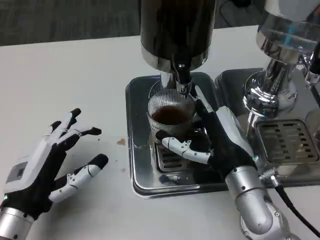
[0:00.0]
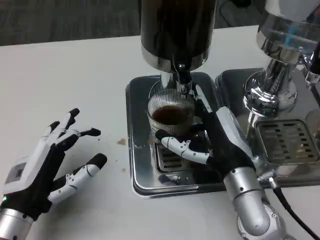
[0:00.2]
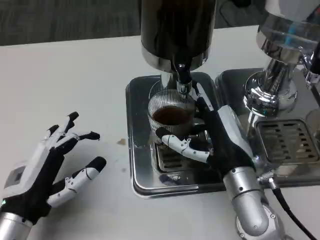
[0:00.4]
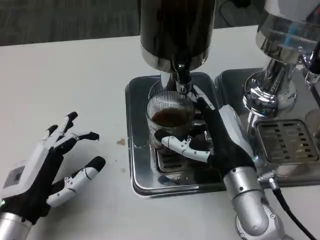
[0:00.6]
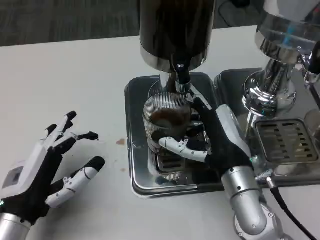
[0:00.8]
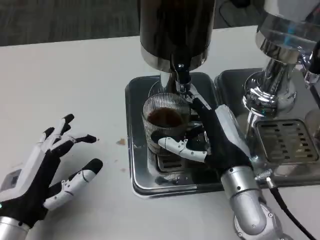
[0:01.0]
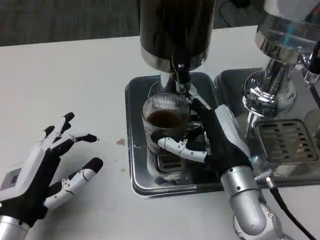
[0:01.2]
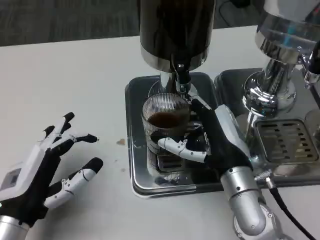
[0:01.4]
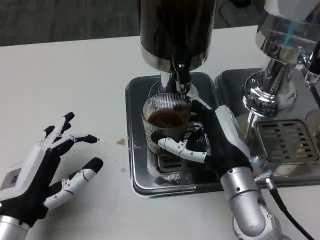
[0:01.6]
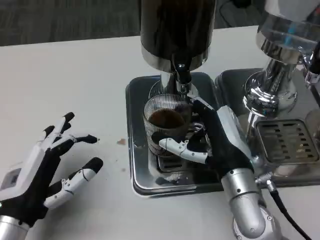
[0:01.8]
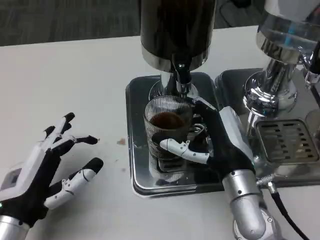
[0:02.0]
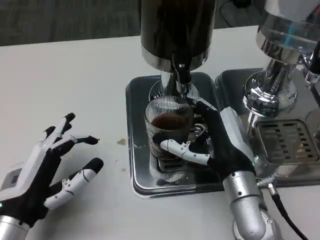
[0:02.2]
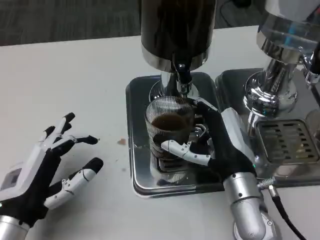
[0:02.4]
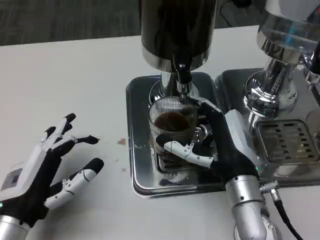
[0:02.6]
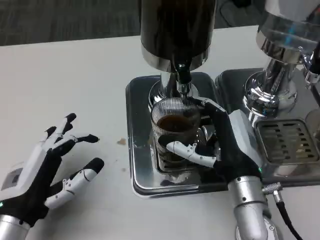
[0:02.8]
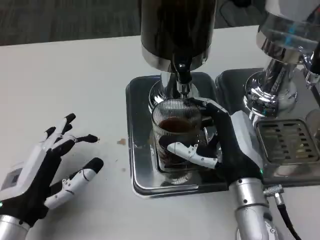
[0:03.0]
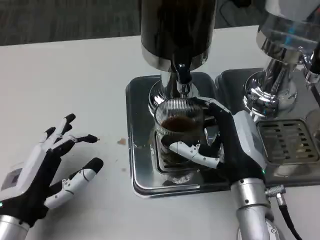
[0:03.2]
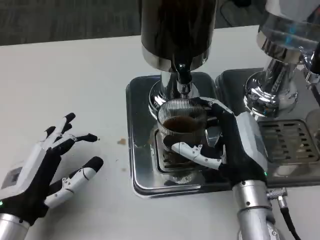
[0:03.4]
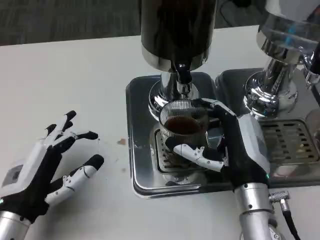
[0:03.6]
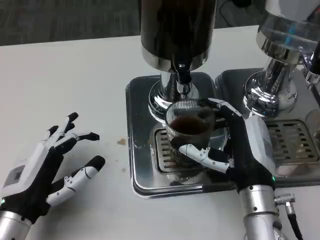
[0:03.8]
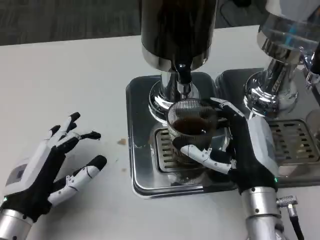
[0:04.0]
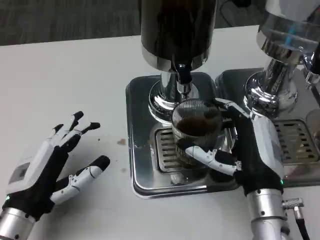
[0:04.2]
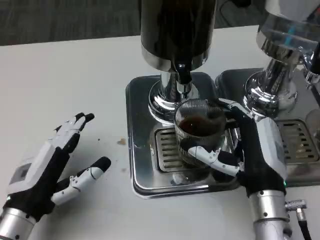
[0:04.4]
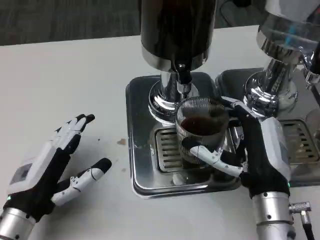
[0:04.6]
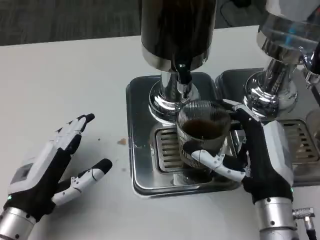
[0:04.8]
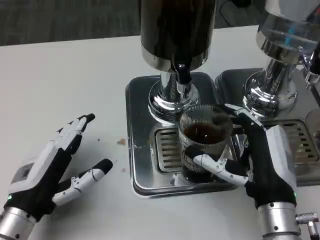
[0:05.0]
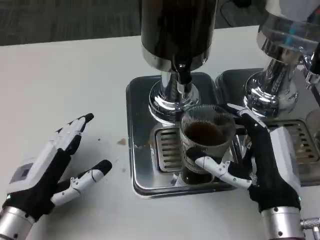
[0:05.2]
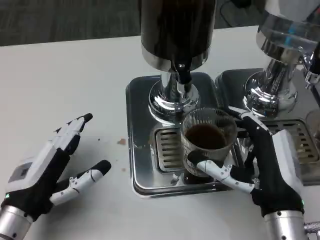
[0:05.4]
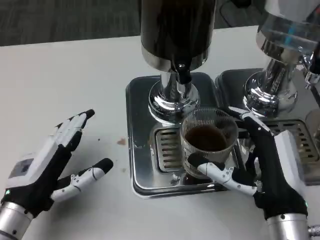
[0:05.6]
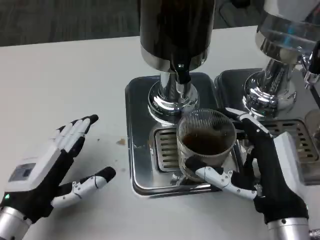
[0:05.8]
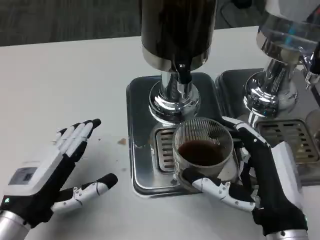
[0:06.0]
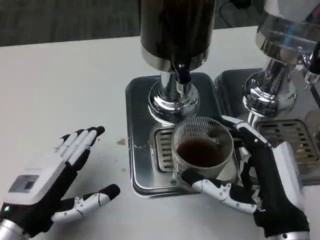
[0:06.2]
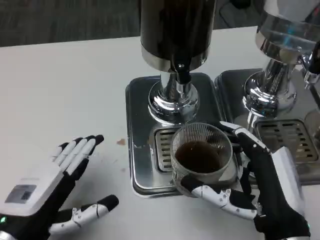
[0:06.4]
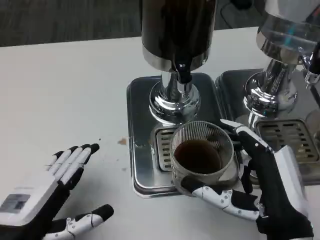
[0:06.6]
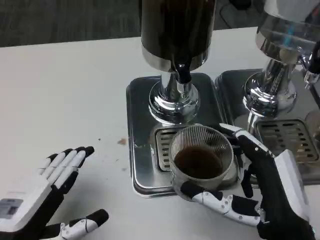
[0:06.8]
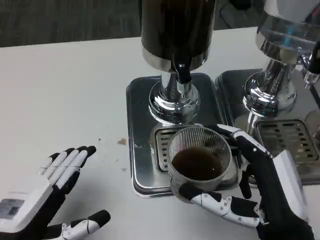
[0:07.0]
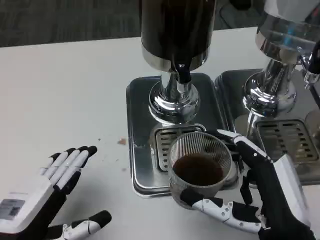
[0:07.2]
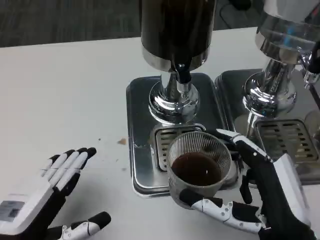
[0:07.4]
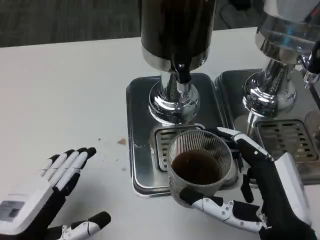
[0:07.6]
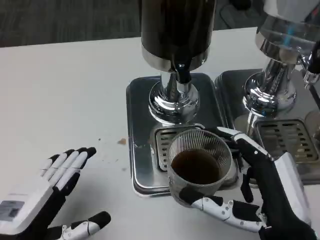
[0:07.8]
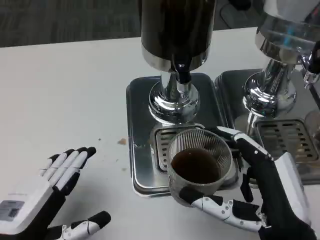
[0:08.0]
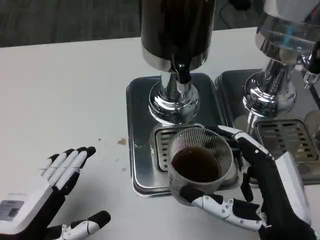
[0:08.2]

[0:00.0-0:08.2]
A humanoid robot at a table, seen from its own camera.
Task of the whole recording: Grasp the cup under the faucet to collect the drink, then remove the cup.
0:00.0 to 0:01.6: Both hands stay about where they are.
0:01.6 to 0:03.2: The hands move only a little.
0:05.0 to 0:06.6: Both hands travel together backward, some 5 cm.
0:06.6 to 0:08.2: Neither hand changes place.

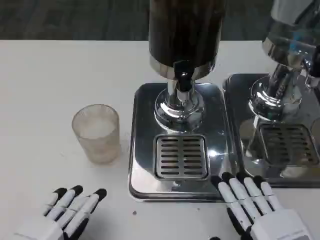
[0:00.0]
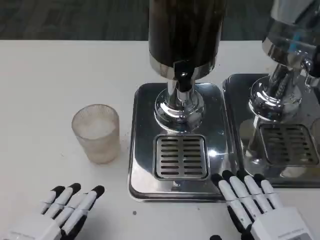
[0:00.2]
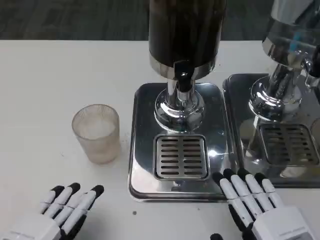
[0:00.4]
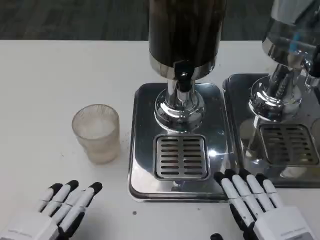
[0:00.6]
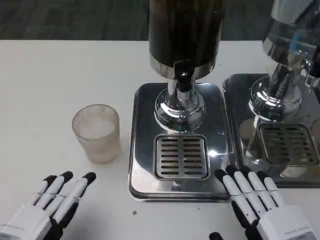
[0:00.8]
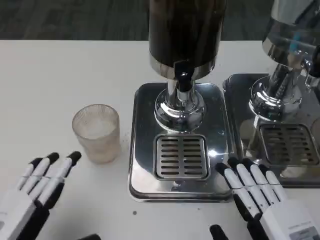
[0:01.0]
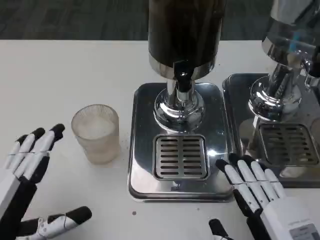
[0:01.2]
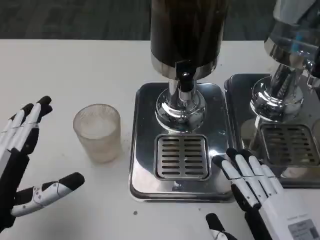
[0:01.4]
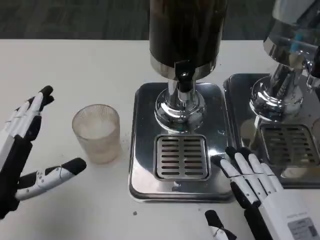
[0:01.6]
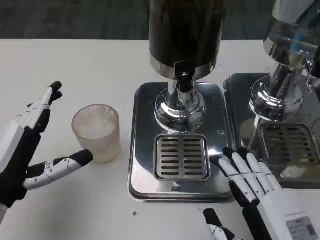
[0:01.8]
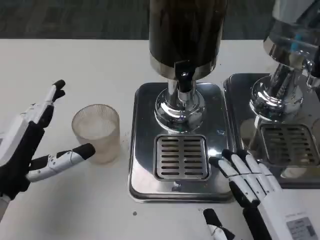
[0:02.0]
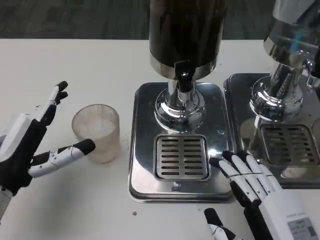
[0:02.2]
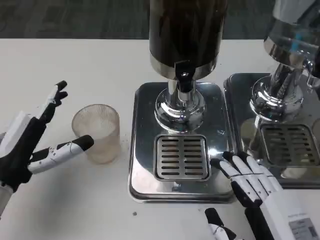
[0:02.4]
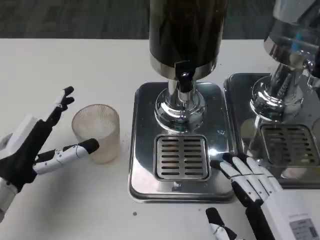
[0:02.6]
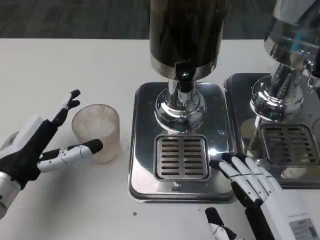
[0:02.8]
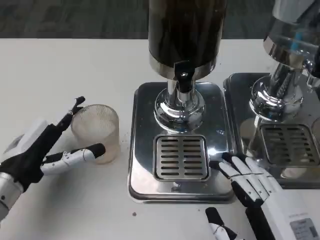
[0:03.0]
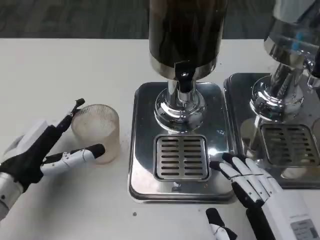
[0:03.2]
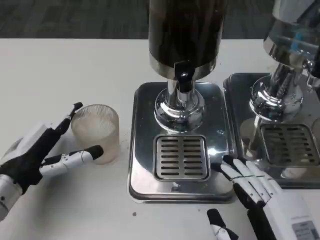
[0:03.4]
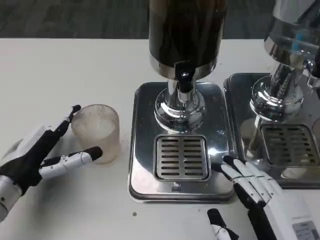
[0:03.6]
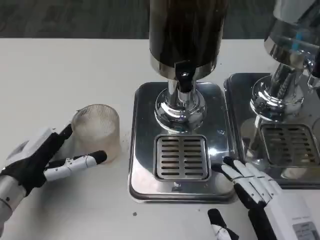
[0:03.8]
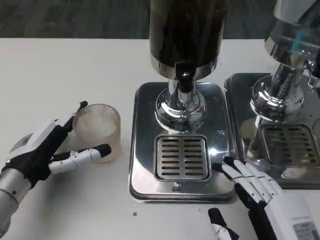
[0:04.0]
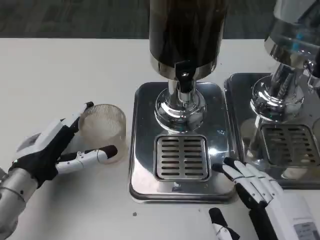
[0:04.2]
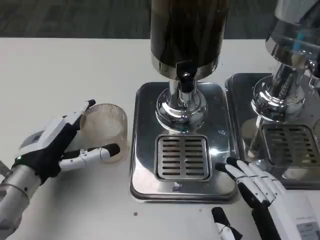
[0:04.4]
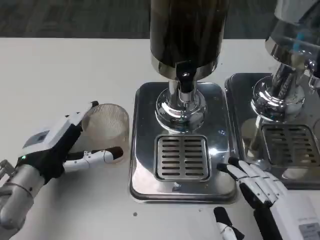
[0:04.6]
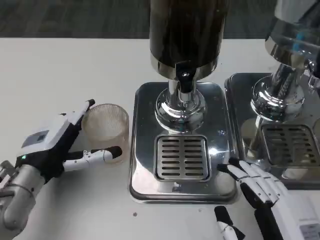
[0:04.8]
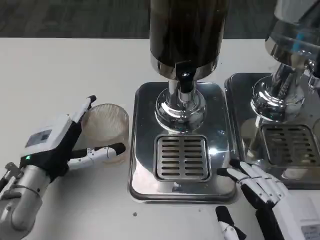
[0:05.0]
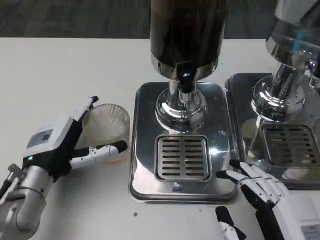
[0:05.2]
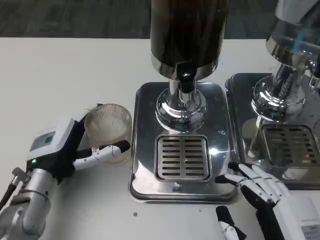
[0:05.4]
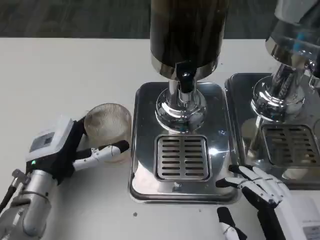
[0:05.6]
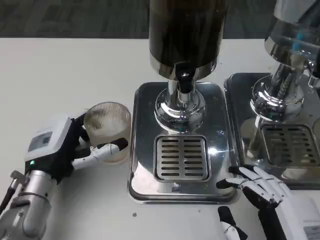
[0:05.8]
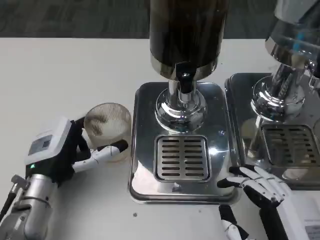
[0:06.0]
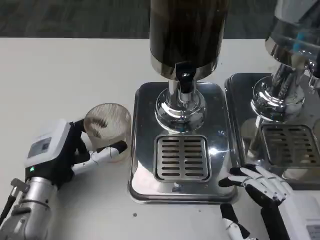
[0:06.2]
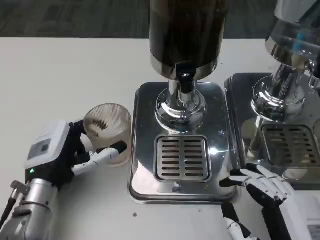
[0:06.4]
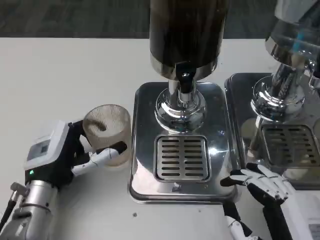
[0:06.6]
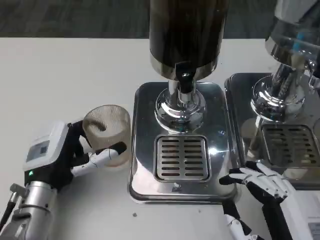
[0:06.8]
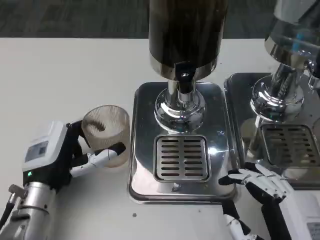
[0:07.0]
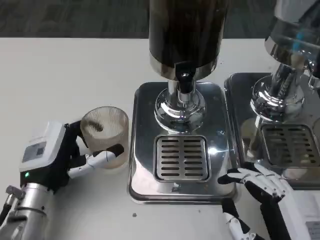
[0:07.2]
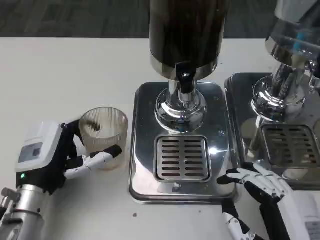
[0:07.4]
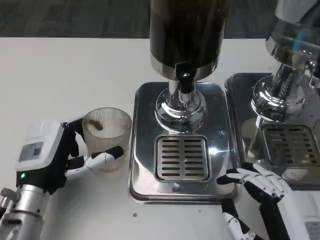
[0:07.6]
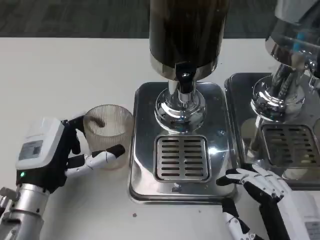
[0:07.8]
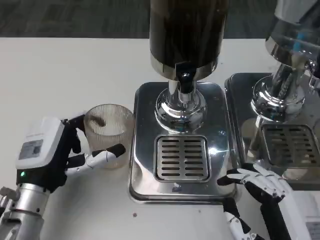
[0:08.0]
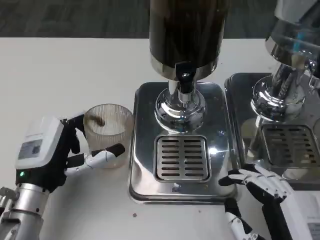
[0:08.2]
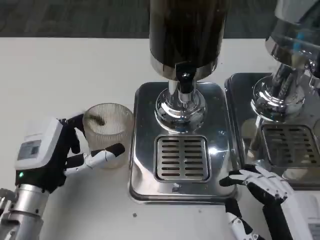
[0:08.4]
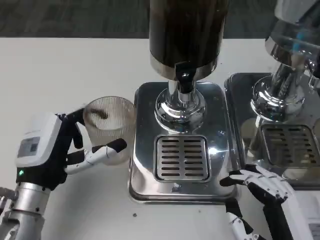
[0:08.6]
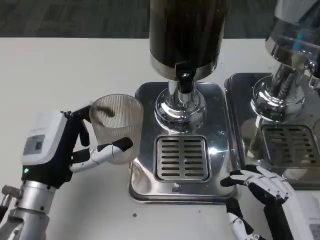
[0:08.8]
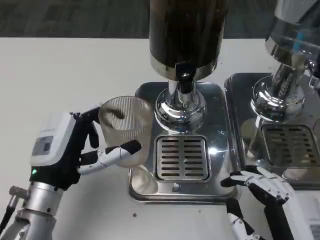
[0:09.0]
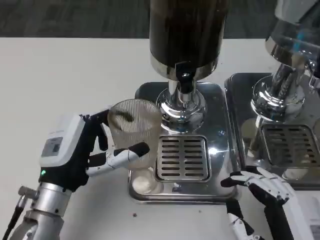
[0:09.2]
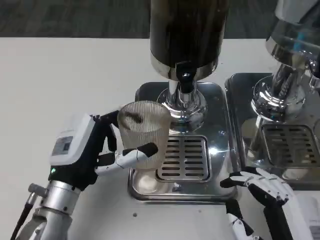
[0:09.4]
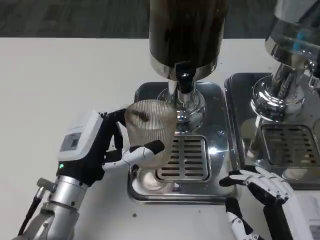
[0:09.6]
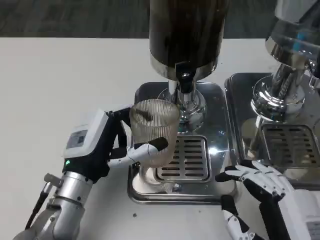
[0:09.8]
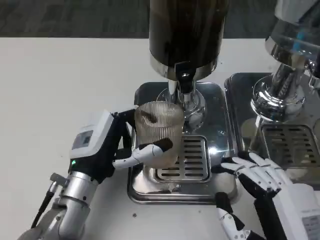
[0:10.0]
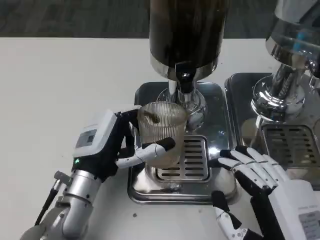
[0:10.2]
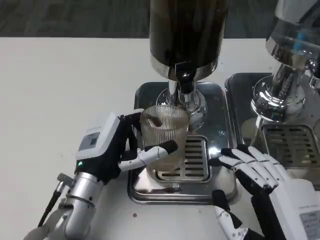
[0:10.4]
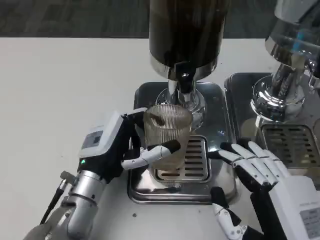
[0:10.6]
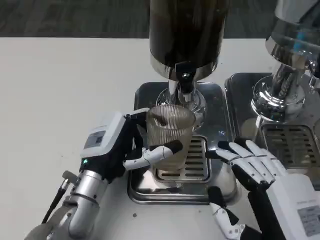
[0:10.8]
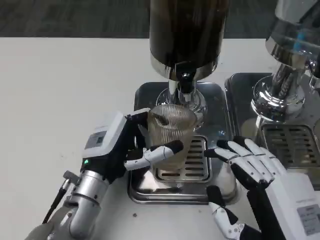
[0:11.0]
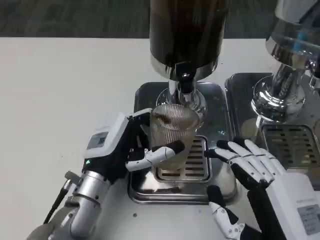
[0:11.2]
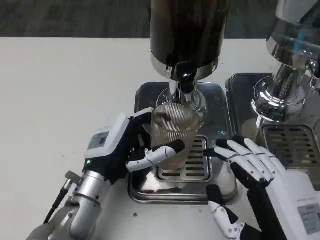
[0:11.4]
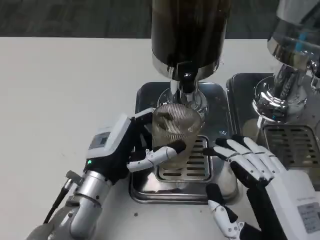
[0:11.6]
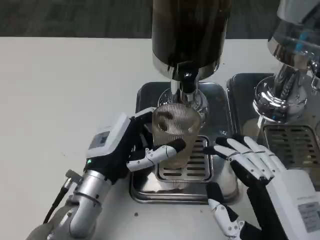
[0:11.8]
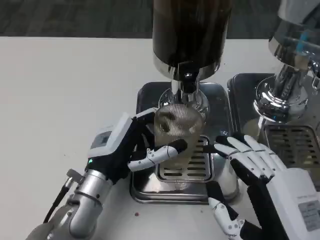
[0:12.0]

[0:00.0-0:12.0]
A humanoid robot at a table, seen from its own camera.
Task of the whole recording: Grasp the cup under the faucet to collect the drink, then remove the cup.
0:00.0 to 0:01.6: The left hand travels forward by roughly 10 cm.
0:01.6 to 0:03.0: The left hand heads forward, covering some 5 cm.
0:03.0 to 0:04.4: The hands stay close to where they were, moving slightly.
0:04.4 to 0:06.0: The hands move only a little.
0:06.0 to 0:09.0: The hands make only small movements.
0:09.0 to 0:10.4: The left hand shifts by some 5 cm.

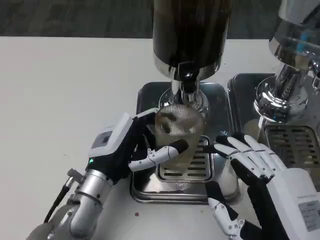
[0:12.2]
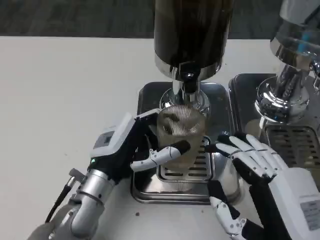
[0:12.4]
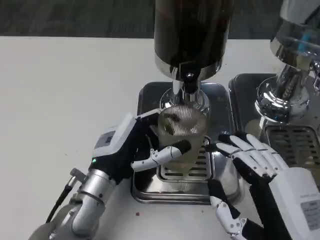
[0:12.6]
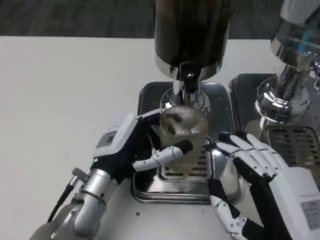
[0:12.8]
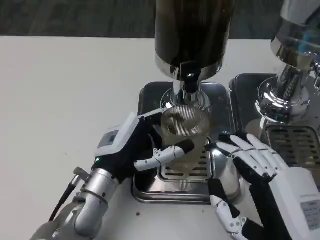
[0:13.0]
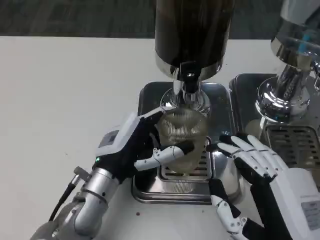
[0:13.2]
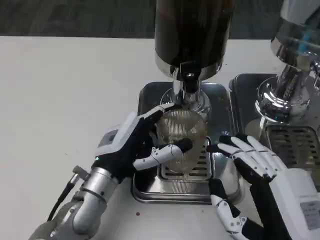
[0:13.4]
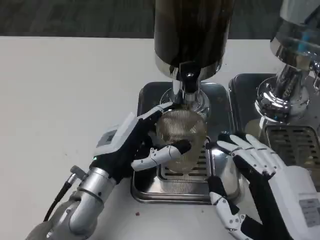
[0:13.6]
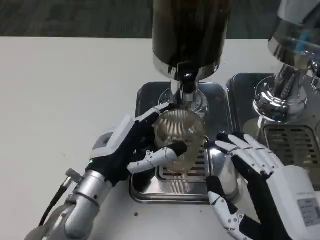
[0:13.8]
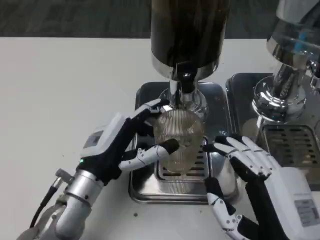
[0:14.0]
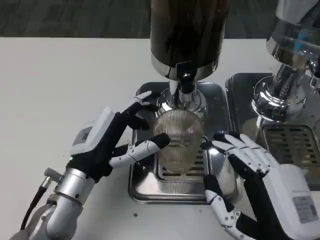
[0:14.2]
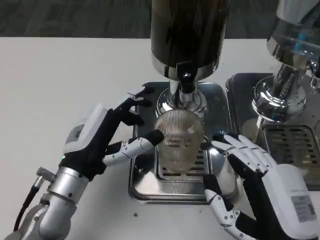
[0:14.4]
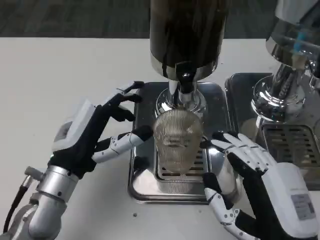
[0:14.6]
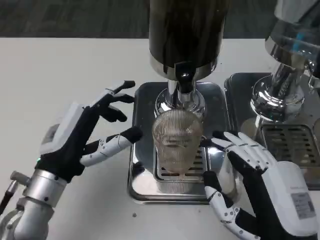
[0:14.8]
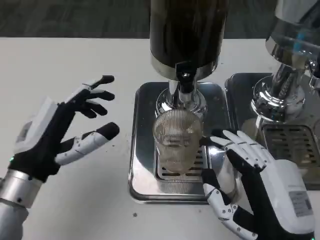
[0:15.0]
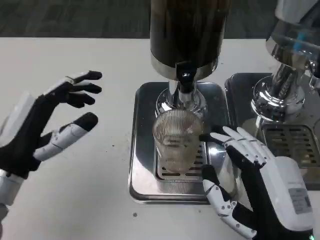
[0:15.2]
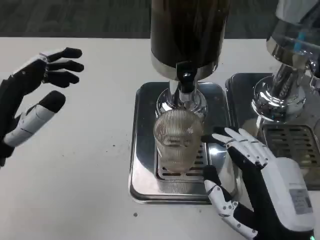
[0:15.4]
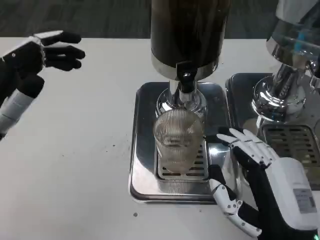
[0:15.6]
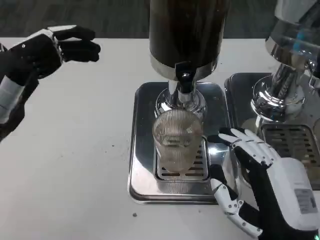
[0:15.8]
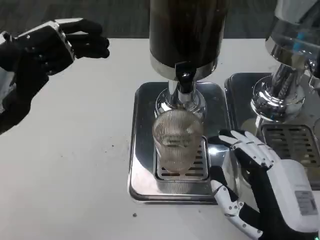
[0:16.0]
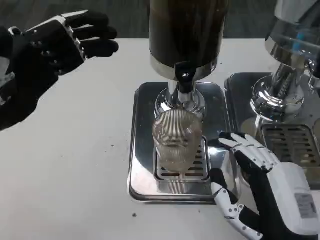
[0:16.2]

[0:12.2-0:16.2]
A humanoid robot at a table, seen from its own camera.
Task of the whole recording: Grasp the cup under the faucet to collect the drink, then remove the cup.
0:12.2 to 0:13.6: Both hands stay put.
0:13.6 to 0:14.8: The left hand moves to the left, about 5 cm.
0:14.8 to 0:16.2: The left hand moves upward and to the left, some 15 cm.
